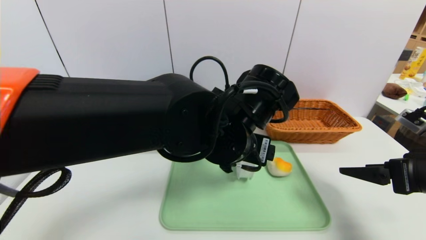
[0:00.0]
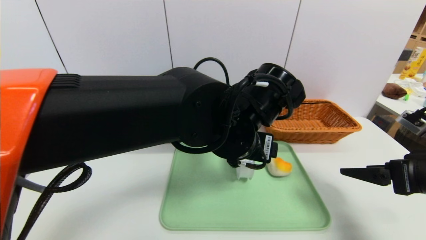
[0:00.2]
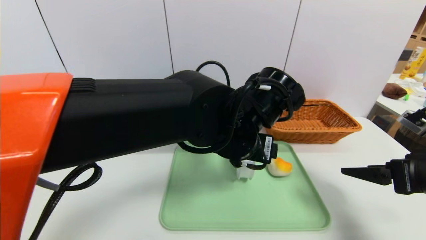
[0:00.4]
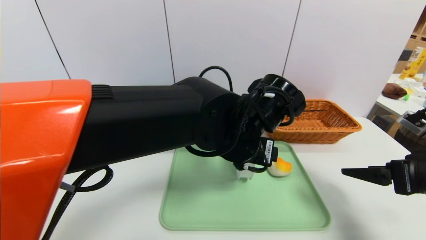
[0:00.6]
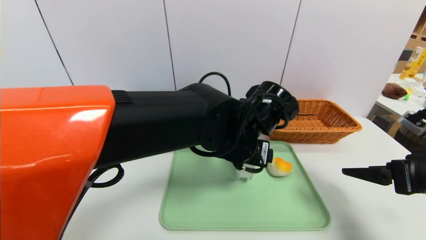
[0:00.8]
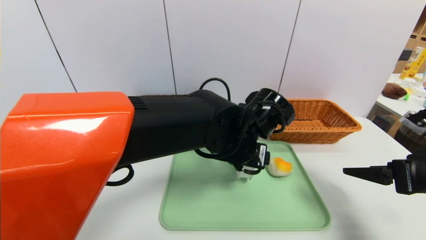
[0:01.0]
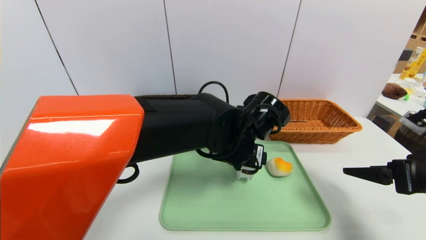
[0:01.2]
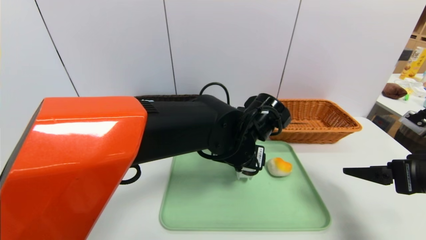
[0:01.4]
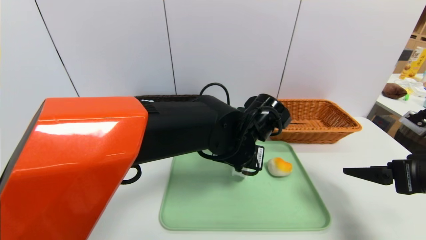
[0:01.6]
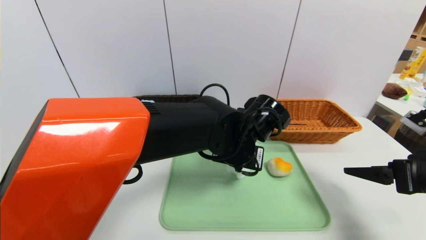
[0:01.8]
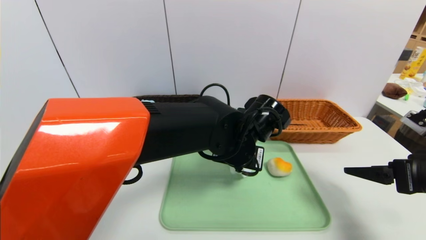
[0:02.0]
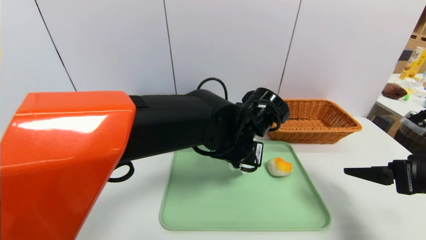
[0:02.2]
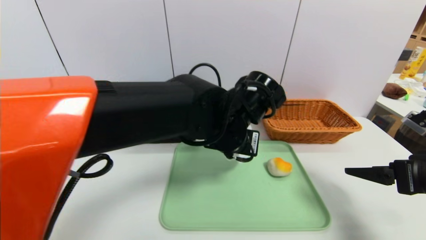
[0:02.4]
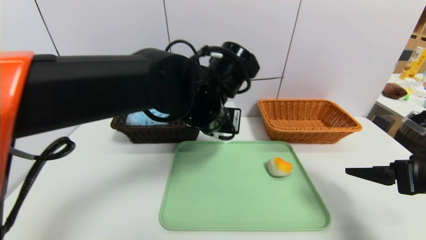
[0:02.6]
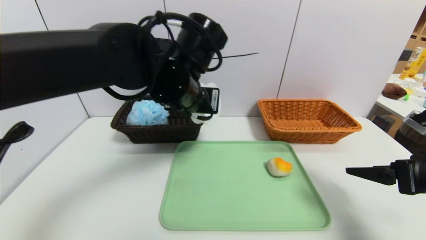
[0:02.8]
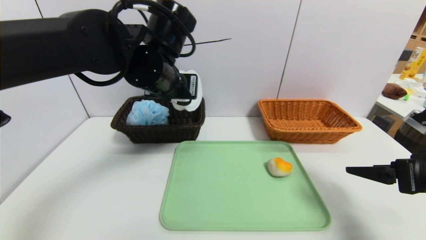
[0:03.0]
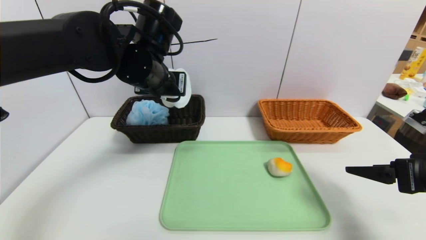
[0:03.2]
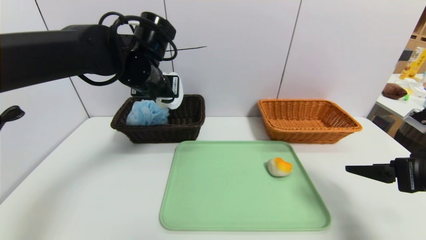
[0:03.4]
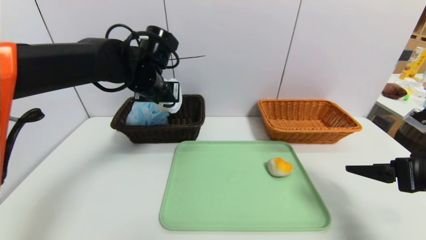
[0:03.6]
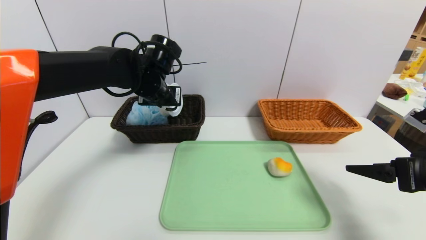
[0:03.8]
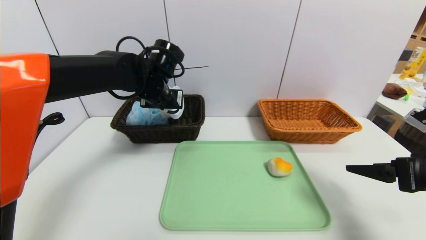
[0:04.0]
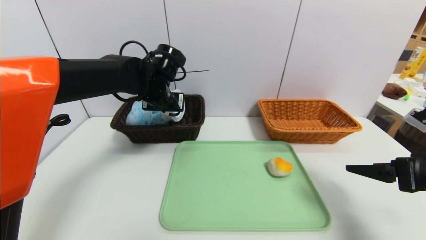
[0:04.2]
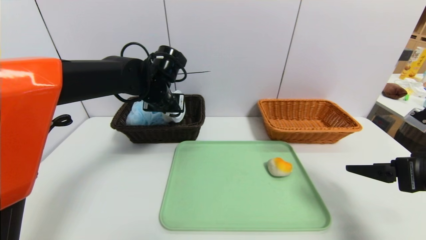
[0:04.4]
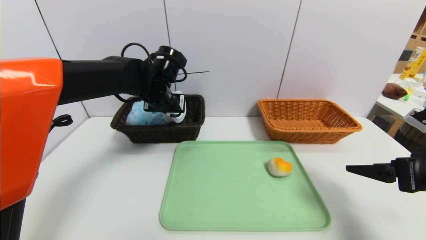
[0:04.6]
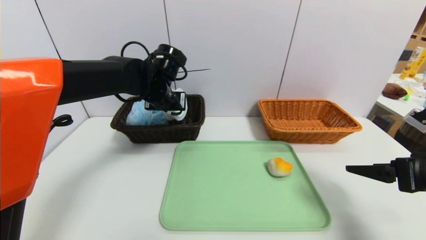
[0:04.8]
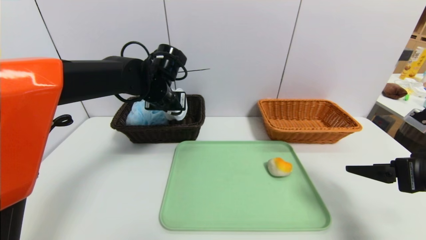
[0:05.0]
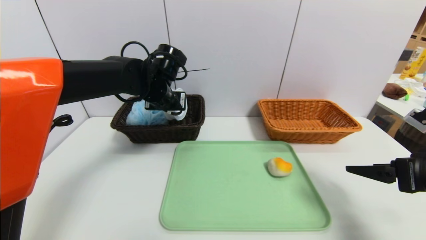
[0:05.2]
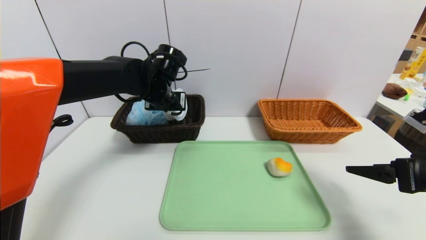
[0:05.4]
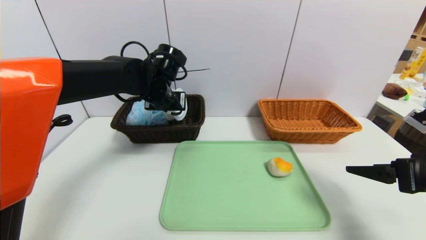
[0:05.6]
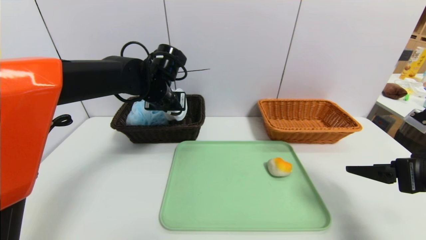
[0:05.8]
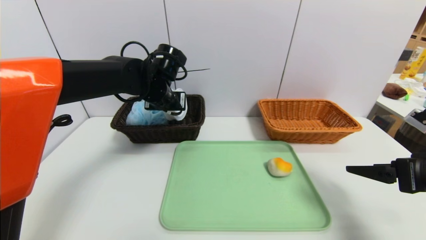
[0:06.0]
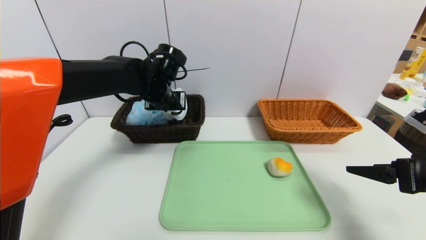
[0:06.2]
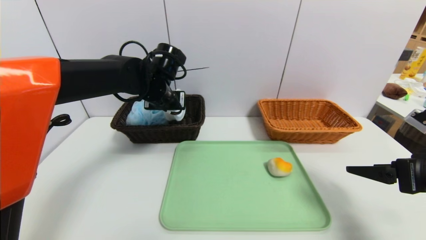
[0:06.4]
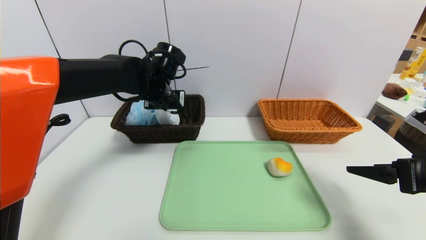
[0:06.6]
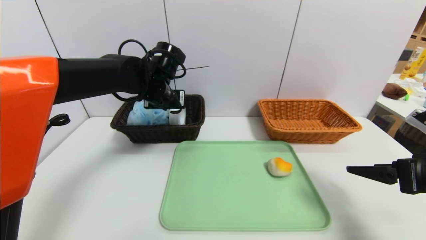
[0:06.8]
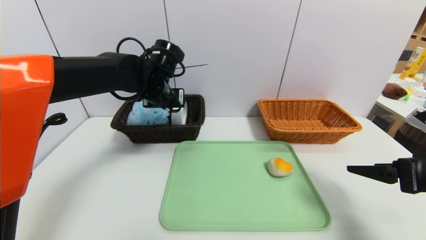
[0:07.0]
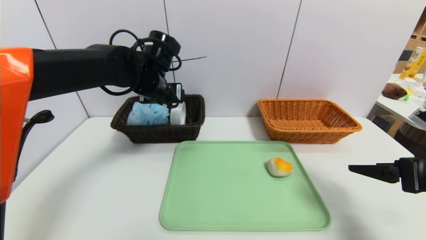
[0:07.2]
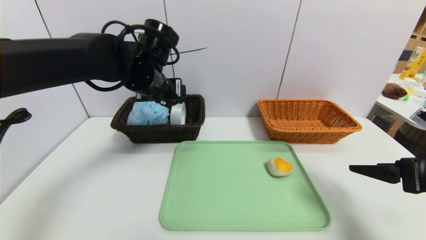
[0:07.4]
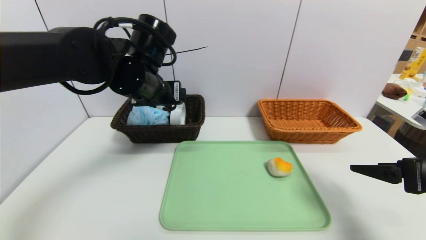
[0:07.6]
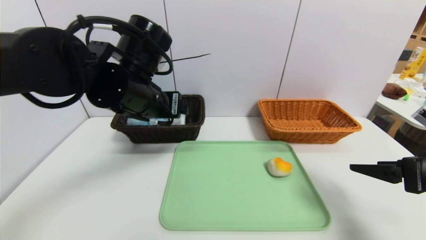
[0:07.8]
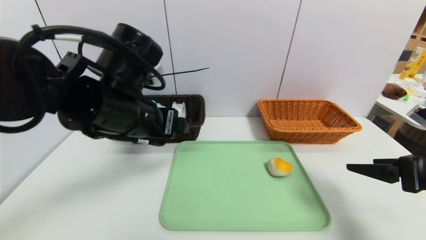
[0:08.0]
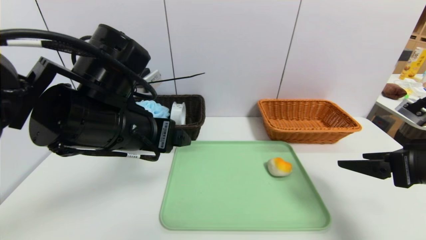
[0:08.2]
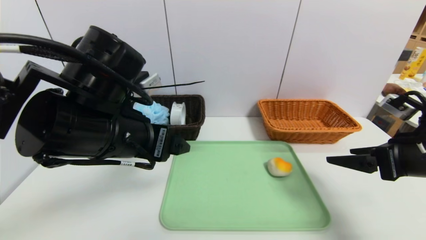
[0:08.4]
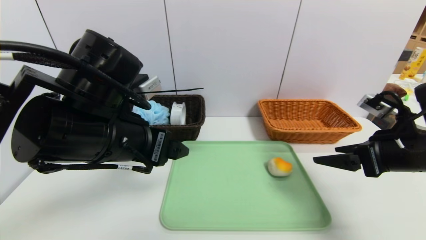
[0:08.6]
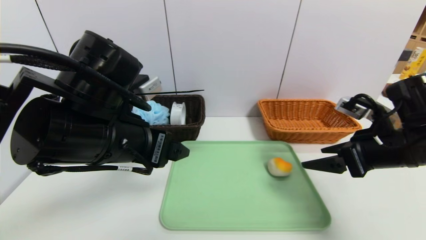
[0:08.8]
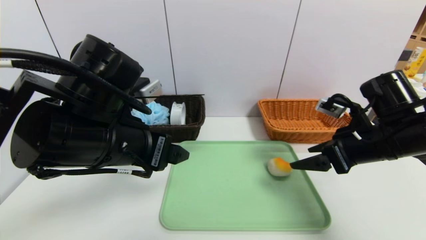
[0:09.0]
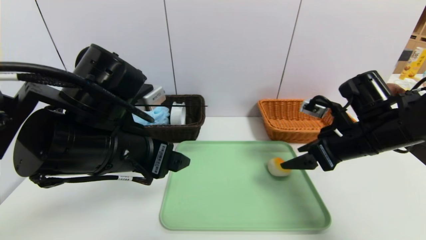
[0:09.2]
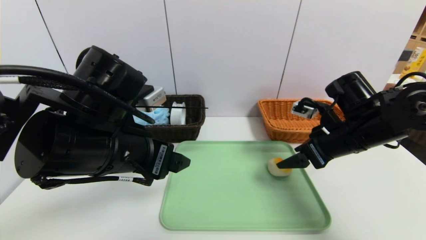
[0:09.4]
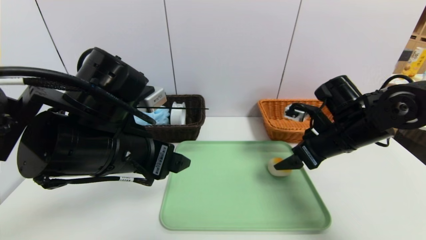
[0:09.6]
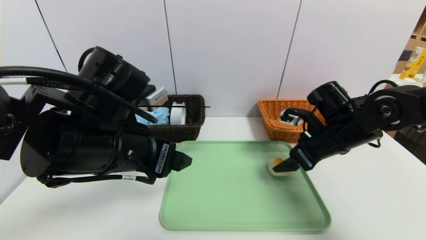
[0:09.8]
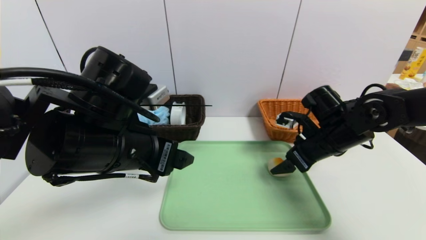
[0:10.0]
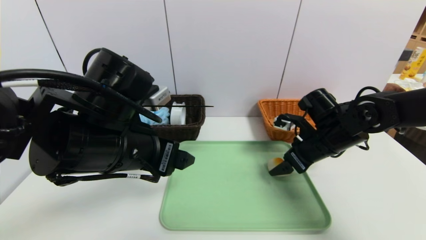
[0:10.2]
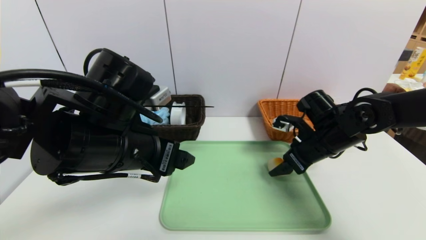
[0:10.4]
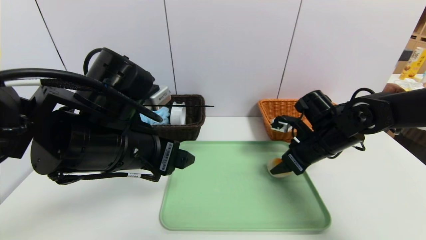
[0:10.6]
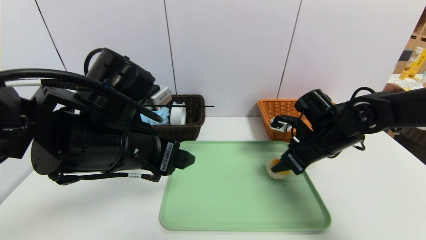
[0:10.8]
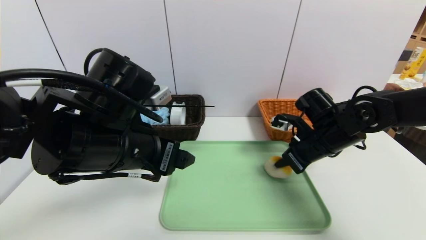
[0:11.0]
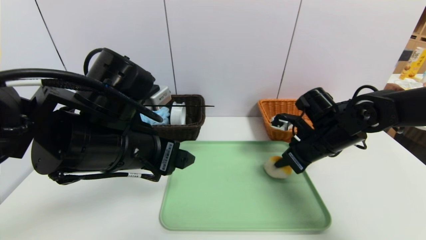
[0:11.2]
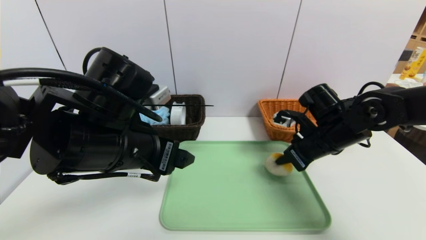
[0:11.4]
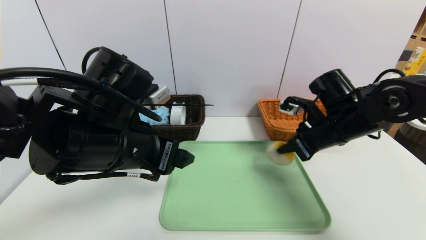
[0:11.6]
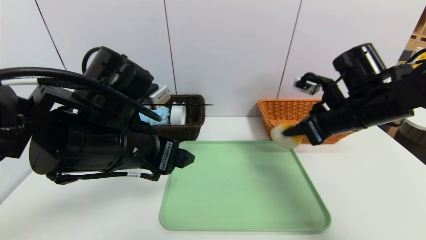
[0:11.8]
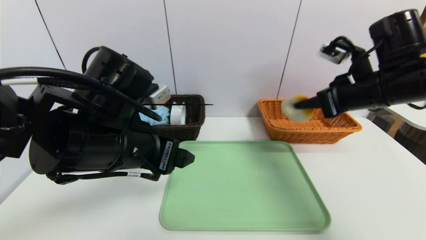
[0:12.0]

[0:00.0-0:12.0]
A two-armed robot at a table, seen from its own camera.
Task of the whole recording: place the food in the right basket with the right gripper, and place the non food items in the left basket with the left gripper.
Step, 0:00.0 to 0:07.0: Grasp the tape and put it in the left basket.
0:00.0 to 0:01.6: The left gripper goes approximately 5 cm downward, and closes.
0:01.6 to 0:03.0: The left gripper moves to the left and upward, approximately 20 cm.
0:03.0 to 0:04.4: The left gripper is displaced forward and downward by roughly 10 cm.
0:04.4 to 0:06.0: Both grippers stay about where they are.
0:06.0 to 0:07.6: The left gripper goes some 10 cm backward, and opens.
0:07.6 to 0:09.0: The left gripper travels backward by approximately 10 cm; the right gripper travels forward and to the left by roughly 10 cm.
0:09.0 to 0:10.4: The right gripper heads forward and downward, covering approximately 10 cm.
0:10.4 to 0:12.0: The right gripper shifts about 15 cm upward, and closes up.

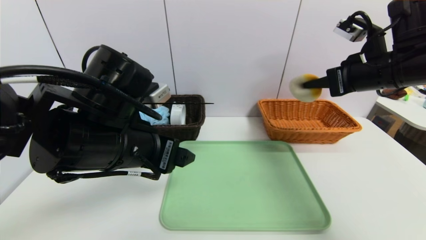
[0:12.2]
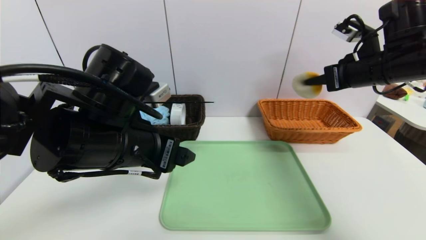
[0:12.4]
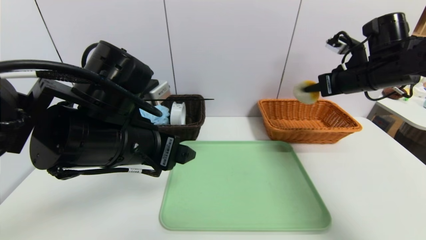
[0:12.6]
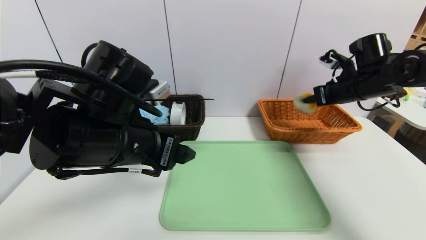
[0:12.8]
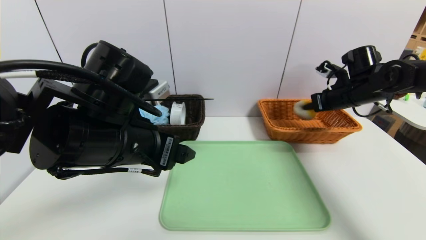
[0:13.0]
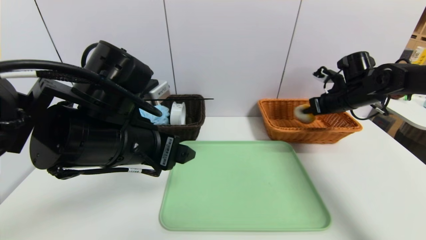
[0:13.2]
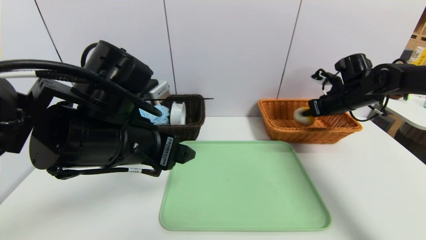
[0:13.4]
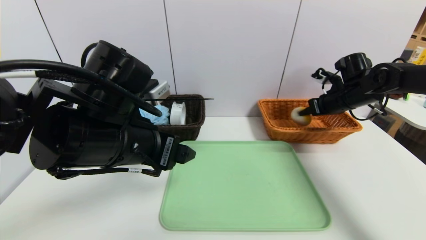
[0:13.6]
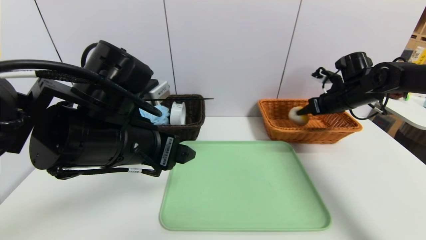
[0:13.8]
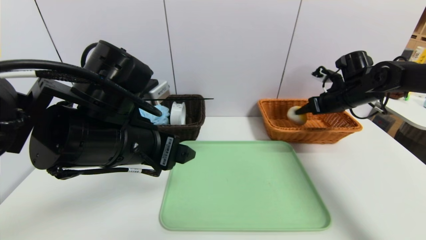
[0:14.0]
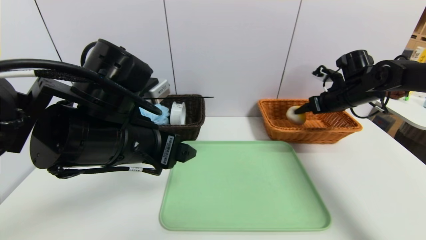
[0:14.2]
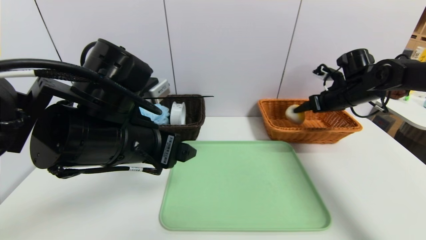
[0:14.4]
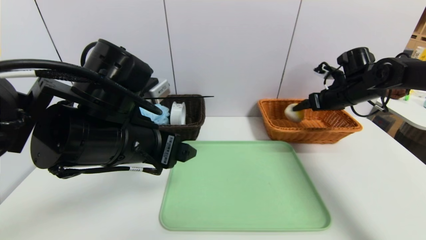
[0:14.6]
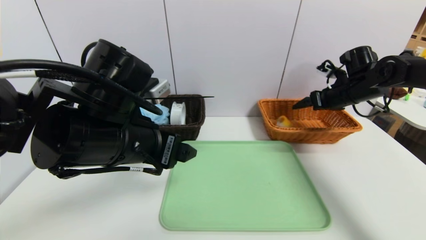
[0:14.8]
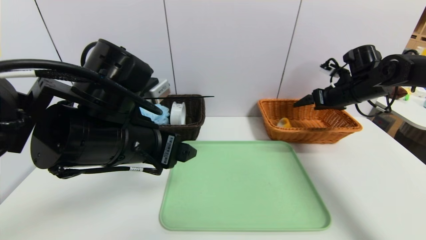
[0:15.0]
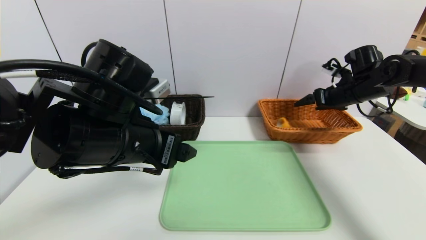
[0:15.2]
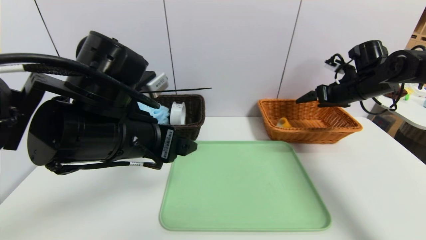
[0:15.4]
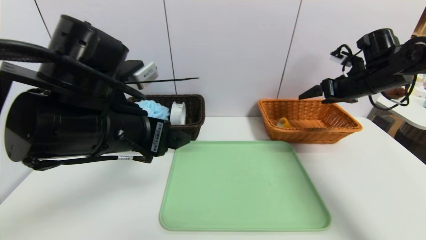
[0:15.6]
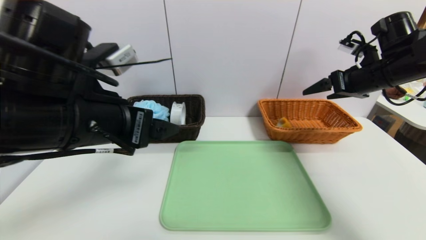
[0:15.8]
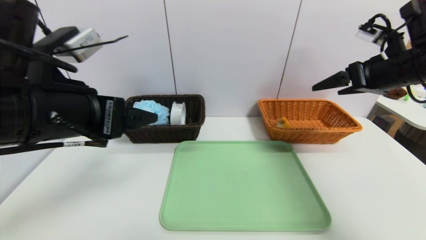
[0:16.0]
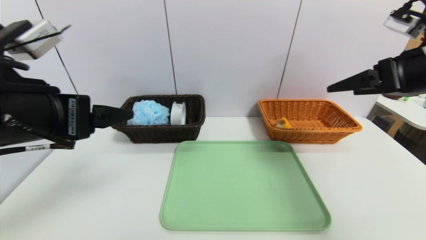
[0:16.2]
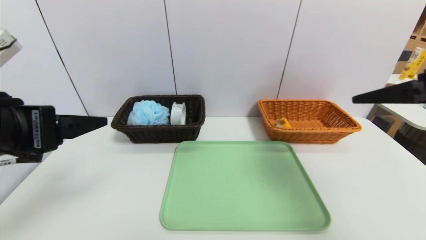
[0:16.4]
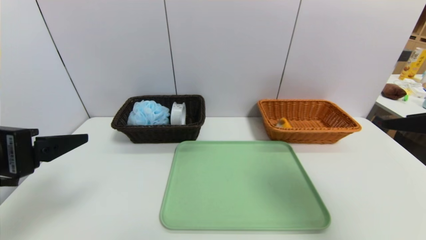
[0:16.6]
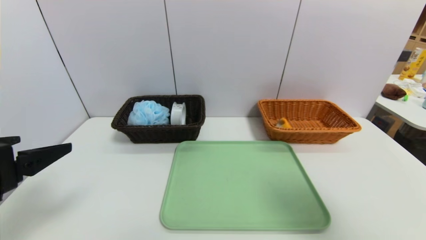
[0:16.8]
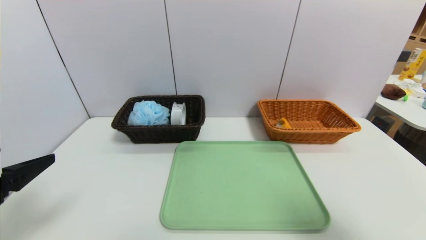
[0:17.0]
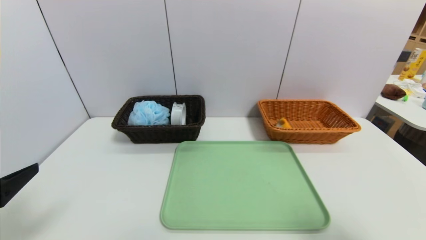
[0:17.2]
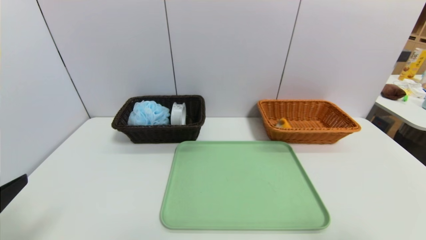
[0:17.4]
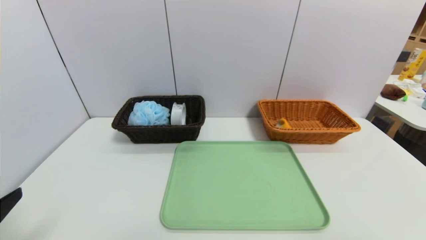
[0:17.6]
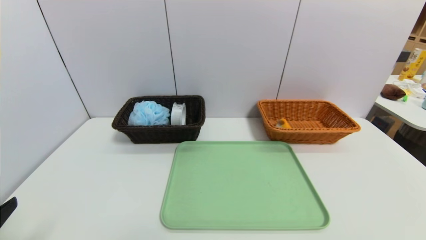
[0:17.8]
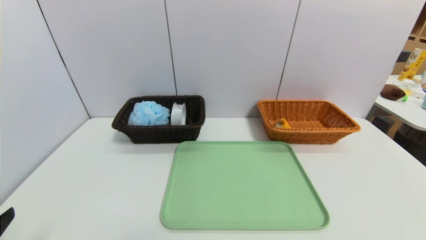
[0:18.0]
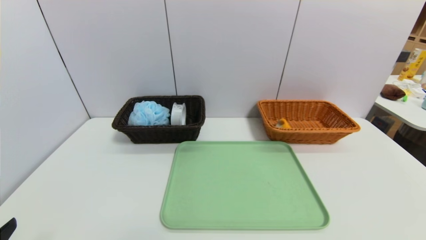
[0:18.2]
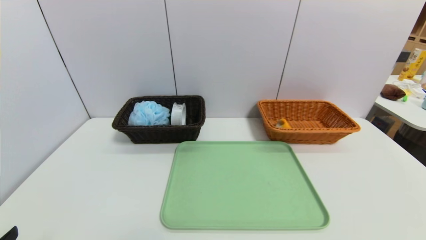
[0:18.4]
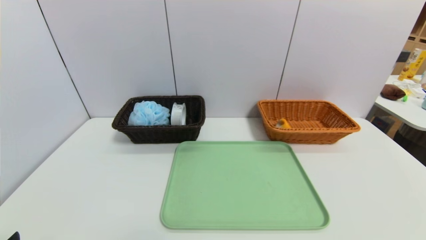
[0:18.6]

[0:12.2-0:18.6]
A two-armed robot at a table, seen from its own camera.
Task of the whole recording: place the food in the right basket with the right gripper, and place the non food items in the left basket with the left gripper.
Step, 0:12.2 to 0:15.4: Grasp the egg yolk pastry and put it in the right basket.
0:12.2 to 0:13.8: The right gripper moves forward, downward and to the right, some 20 cm, and opens its fingers.
0:13.8 to 0:15.4: The right gripper opens.
0:15.4 to 0:17.0: The left gripper heads to the left and backward, covering some 20 cm; the right gripper heads backward, covering roughly 35 cm.
0:17.0 to 0:18.6: The left gripper goes roughly 15 cm downward and backward. Meanwhile the right gripper travels backward and downward by roughly 15 cm.
